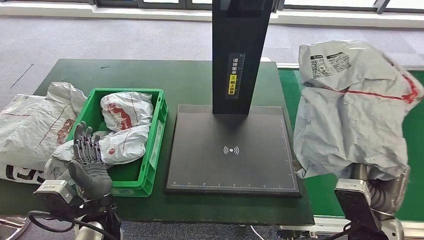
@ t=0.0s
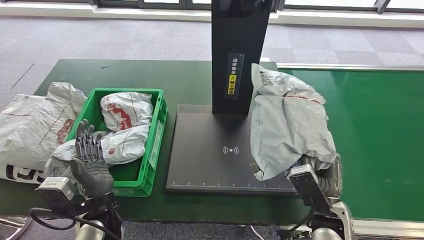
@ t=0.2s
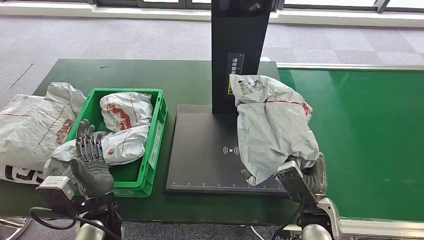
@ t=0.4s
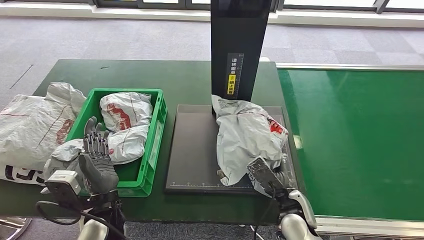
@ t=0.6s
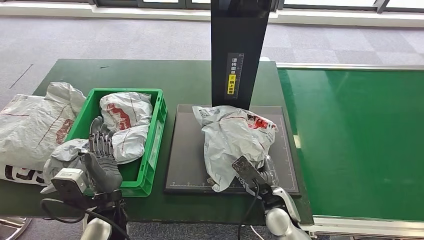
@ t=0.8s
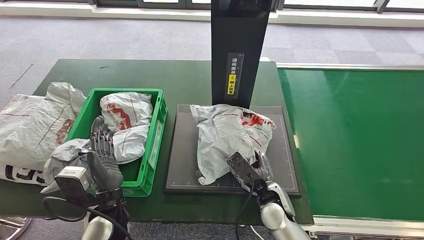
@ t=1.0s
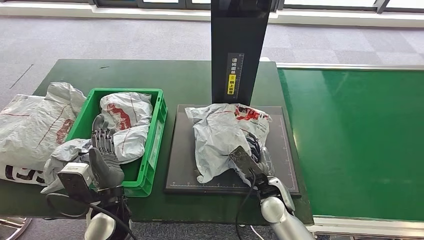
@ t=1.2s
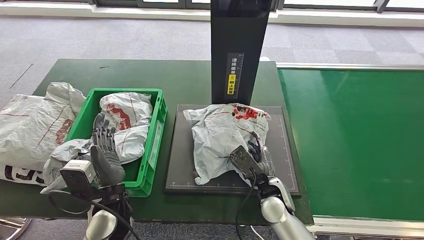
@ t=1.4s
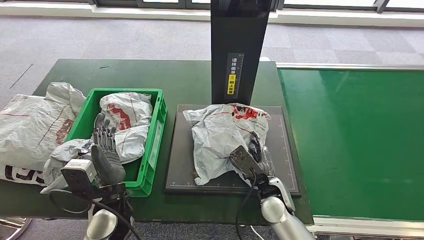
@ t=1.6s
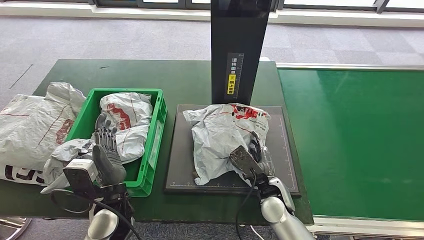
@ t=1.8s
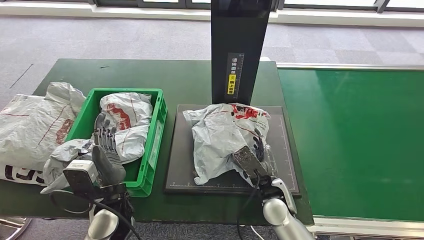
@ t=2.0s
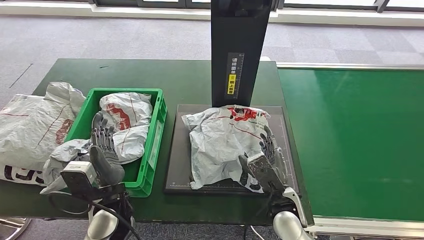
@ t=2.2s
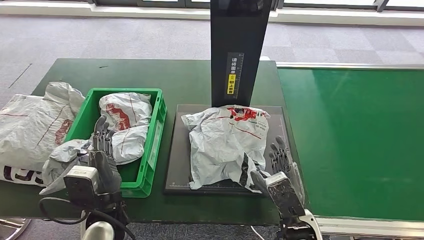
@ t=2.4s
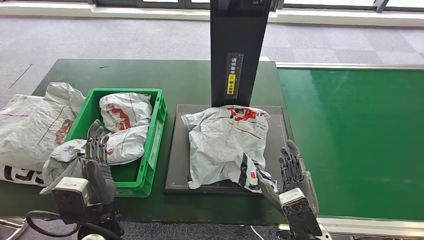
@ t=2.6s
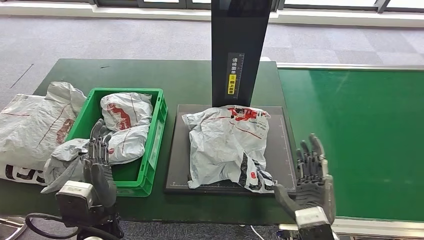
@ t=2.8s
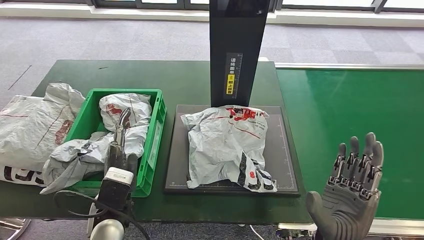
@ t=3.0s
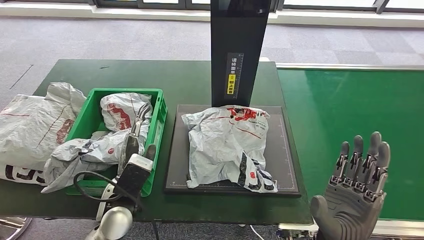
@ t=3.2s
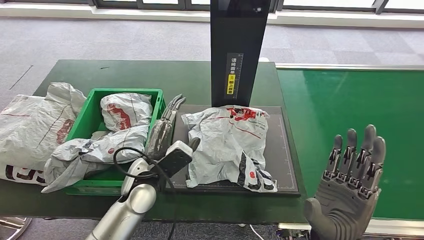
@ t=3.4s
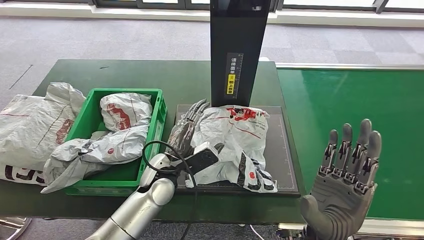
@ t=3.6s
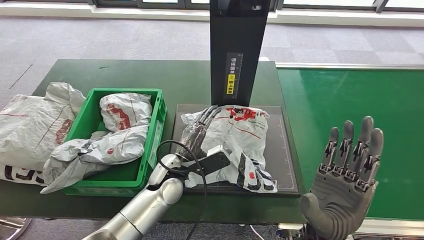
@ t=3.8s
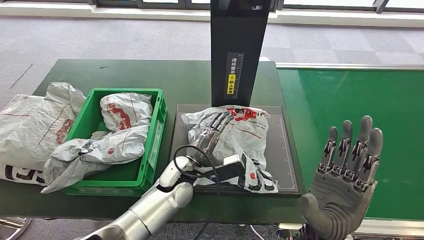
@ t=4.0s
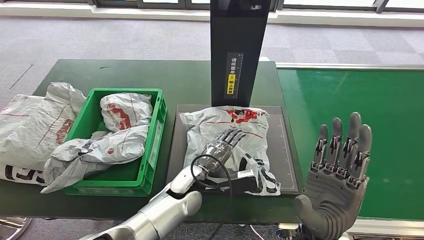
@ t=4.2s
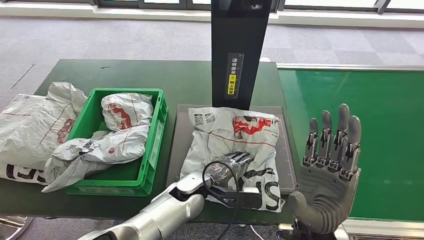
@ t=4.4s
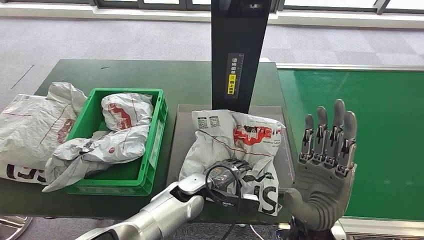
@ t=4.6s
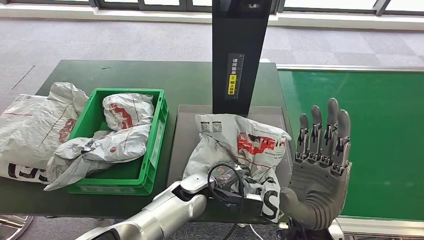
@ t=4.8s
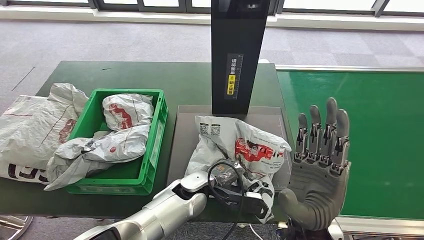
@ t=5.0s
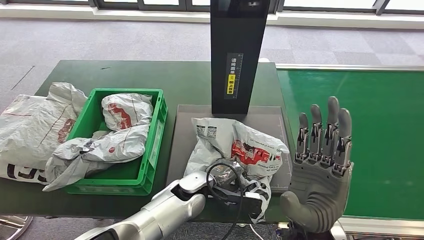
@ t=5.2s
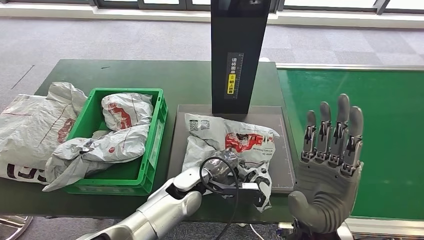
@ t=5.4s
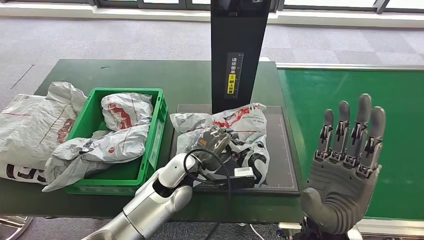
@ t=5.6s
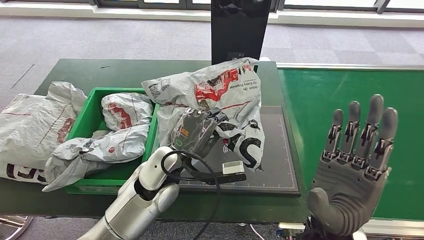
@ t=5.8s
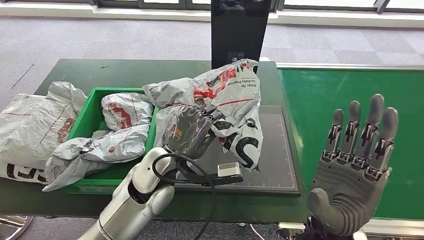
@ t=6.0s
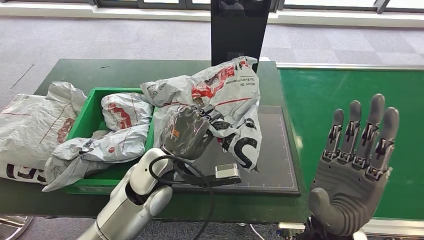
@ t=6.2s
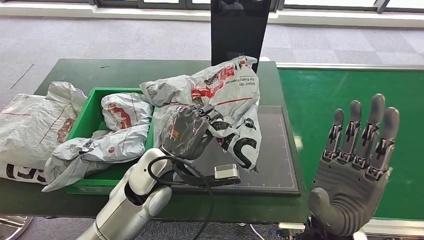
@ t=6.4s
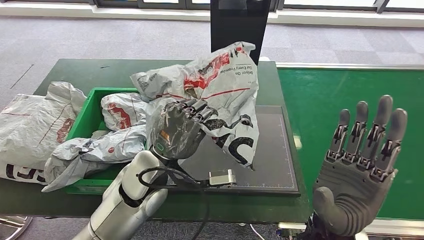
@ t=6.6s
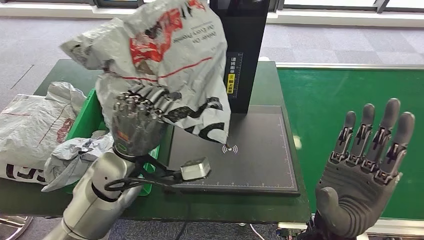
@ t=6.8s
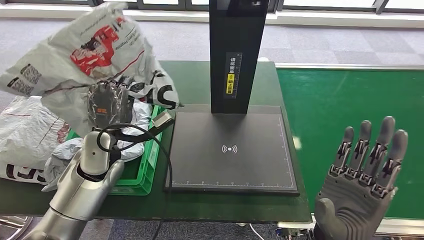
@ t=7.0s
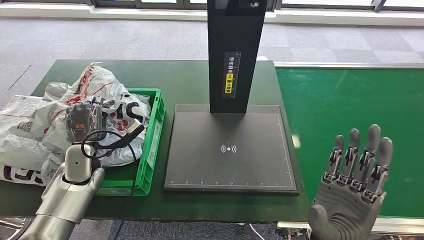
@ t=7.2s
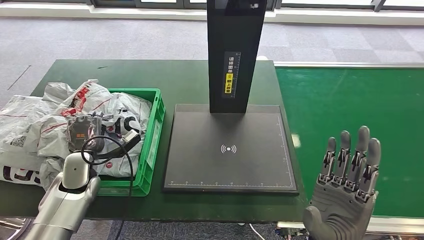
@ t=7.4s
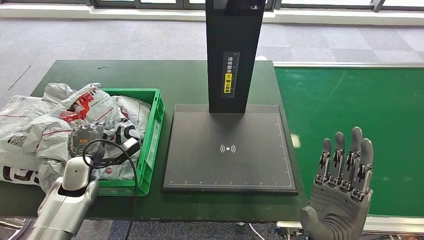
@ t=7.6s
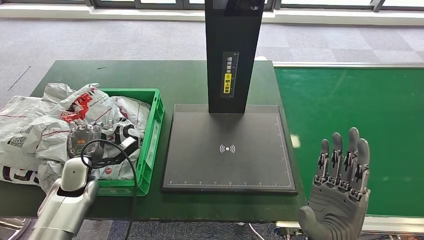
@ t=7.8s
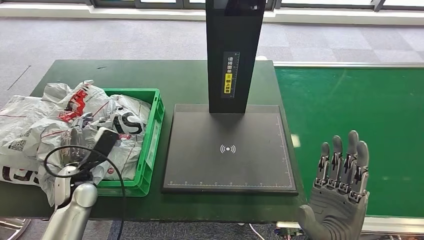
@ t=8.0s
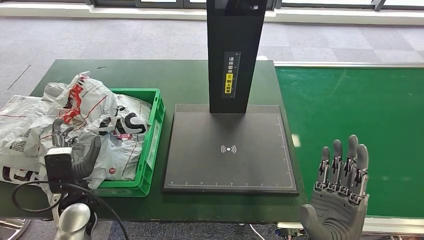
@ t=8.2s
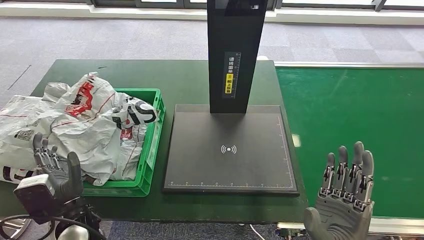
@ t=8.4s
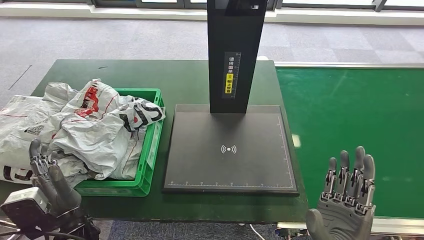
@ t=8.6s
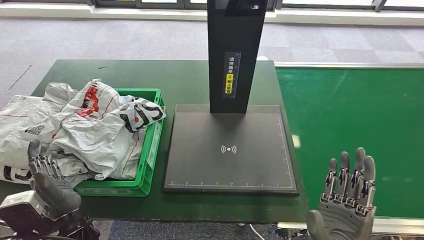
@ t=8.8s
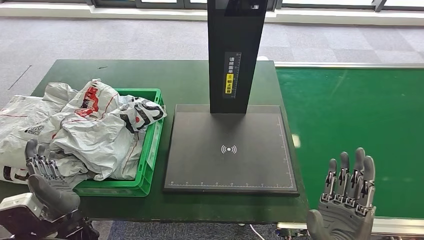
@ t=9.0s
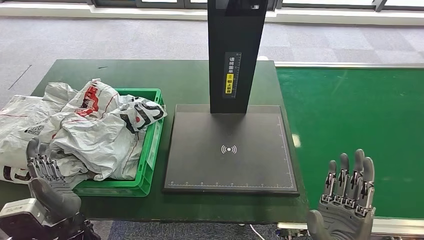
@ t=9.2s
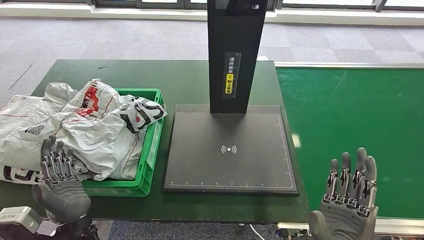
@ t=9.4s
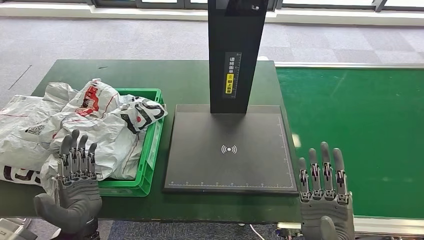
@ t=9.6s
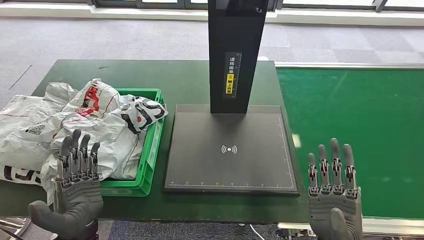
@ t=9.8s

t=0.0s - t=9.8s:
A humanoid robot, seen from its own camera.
Step, t=0.0s - t=2.4s: Place the parcel onto the inbound machine.
Step, t=2.6s - t=6.0s: Pick up the parcel from the inbound machine.
Step, t=6.2s - t=9.6s: Place the parcel into the delivery box.
t=1.4s - t=2.8s: The right hand is displaced backward and upward by about 15 cm. The left hand ends up about 5 cm from where it was.
t=2.8s - t=4.2s: The left hand shifts approximately 20 cm to the right and forward; the right hand moves upward, approximately 5 cm.
t=4.2s - t=5.6s: The left hand is displaced upward by some 5 cm.
t=8.4s - t=9.8s: The left hand moves roughly 5 cm.

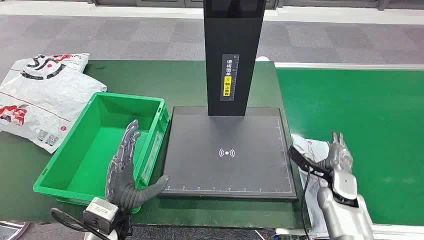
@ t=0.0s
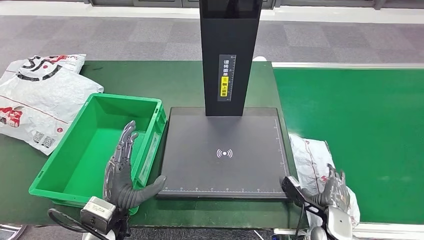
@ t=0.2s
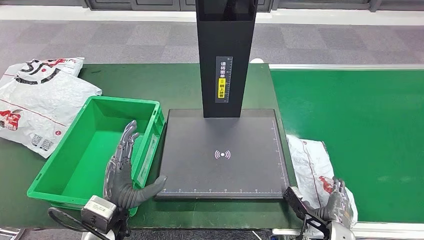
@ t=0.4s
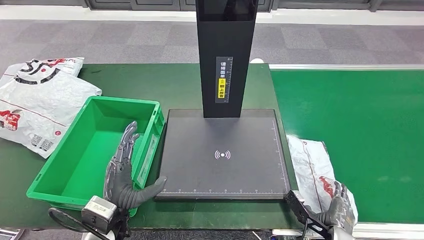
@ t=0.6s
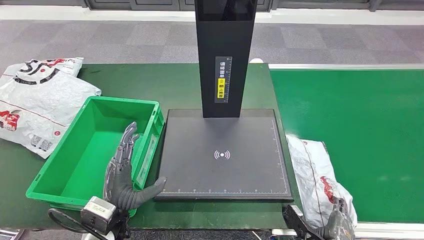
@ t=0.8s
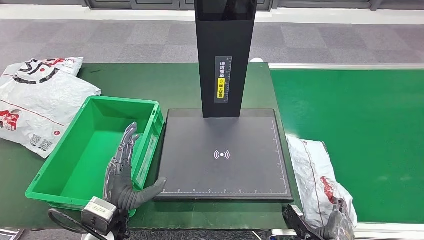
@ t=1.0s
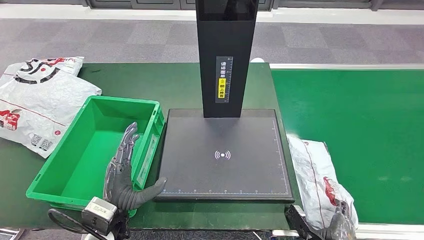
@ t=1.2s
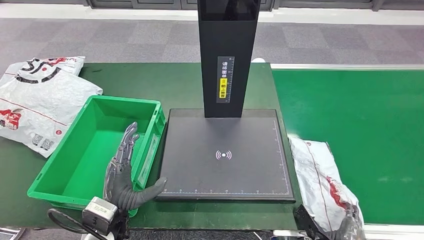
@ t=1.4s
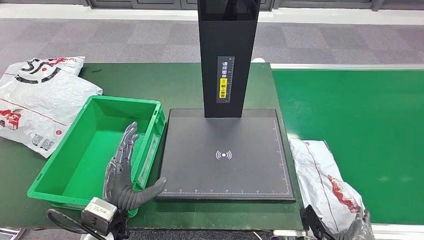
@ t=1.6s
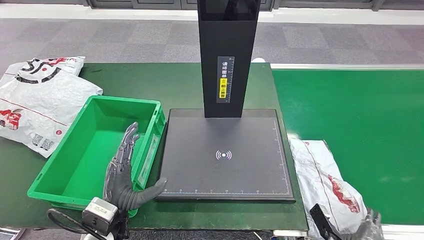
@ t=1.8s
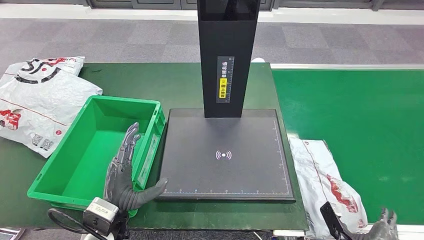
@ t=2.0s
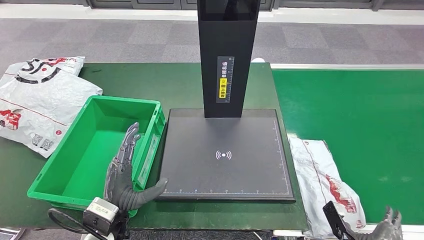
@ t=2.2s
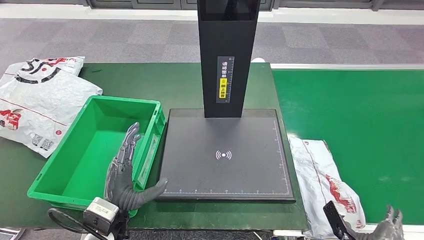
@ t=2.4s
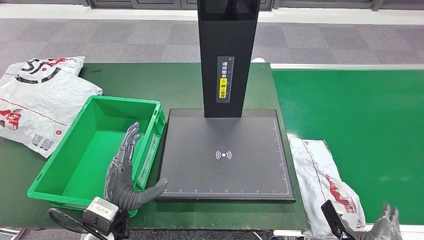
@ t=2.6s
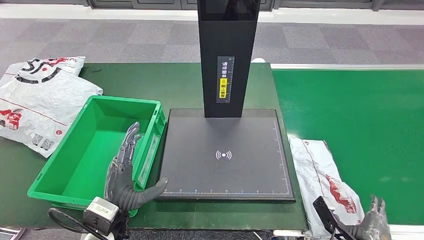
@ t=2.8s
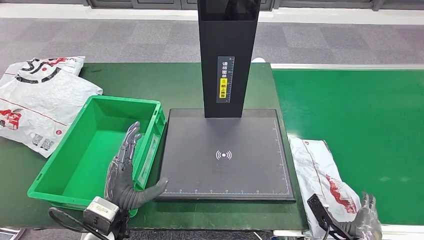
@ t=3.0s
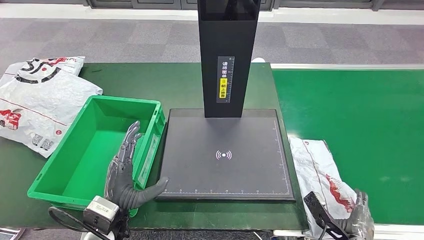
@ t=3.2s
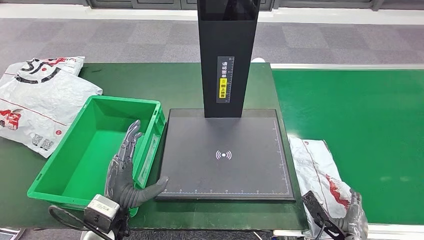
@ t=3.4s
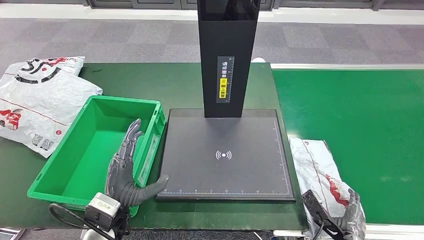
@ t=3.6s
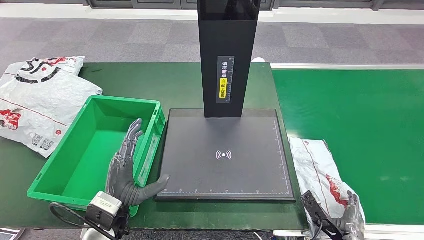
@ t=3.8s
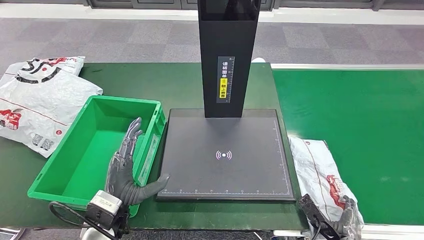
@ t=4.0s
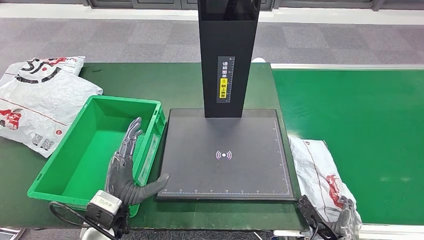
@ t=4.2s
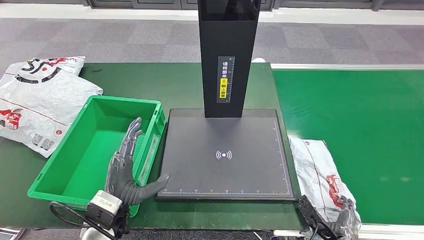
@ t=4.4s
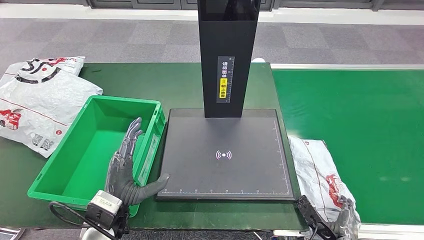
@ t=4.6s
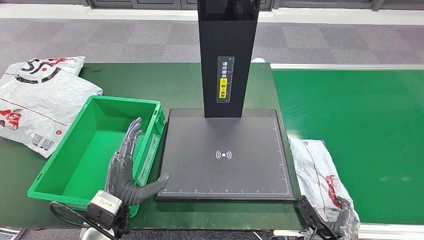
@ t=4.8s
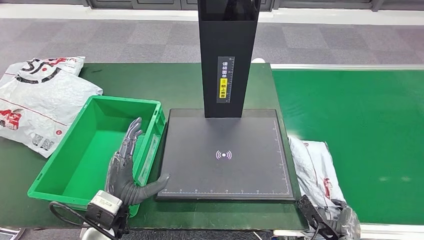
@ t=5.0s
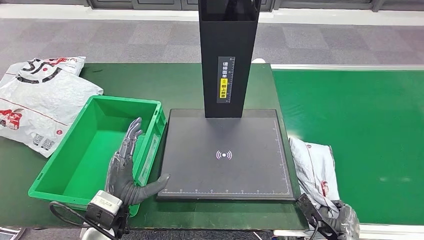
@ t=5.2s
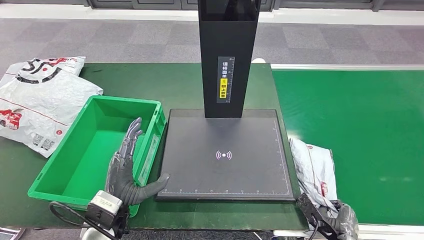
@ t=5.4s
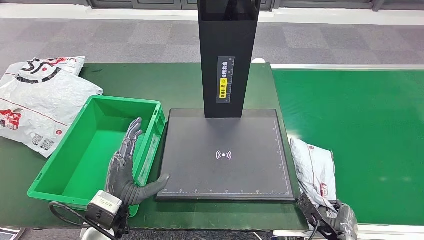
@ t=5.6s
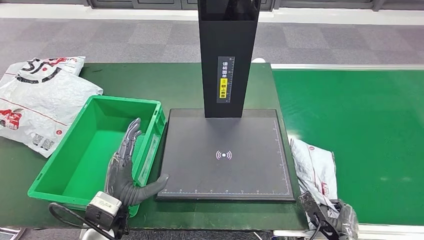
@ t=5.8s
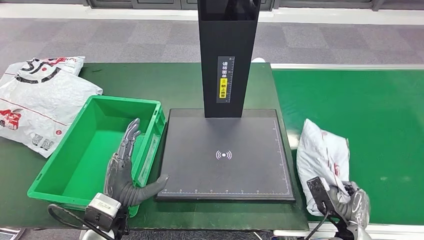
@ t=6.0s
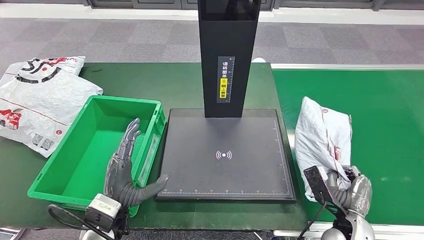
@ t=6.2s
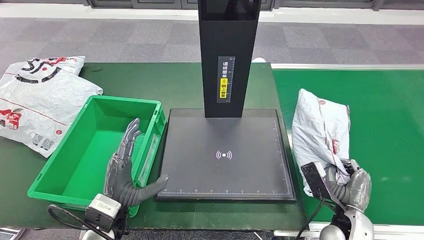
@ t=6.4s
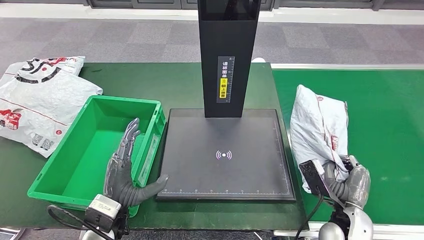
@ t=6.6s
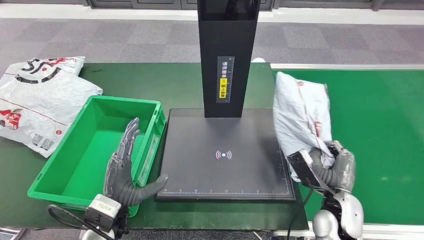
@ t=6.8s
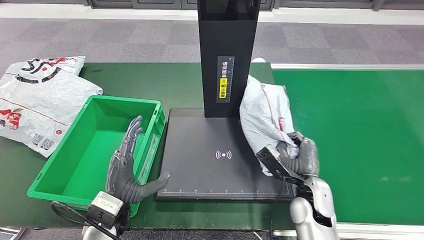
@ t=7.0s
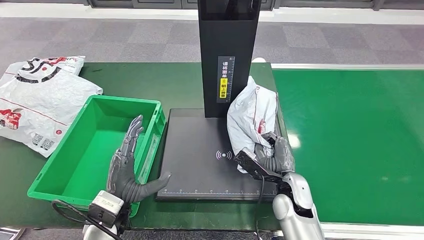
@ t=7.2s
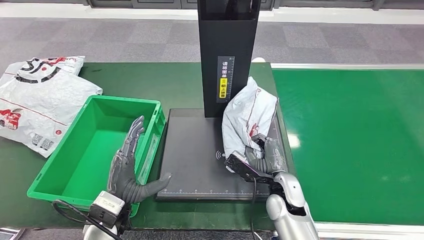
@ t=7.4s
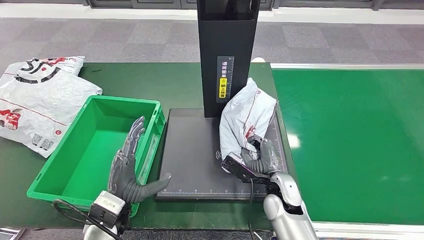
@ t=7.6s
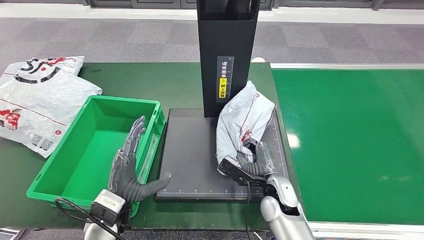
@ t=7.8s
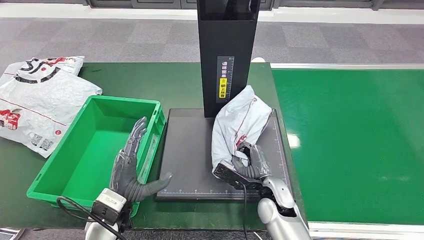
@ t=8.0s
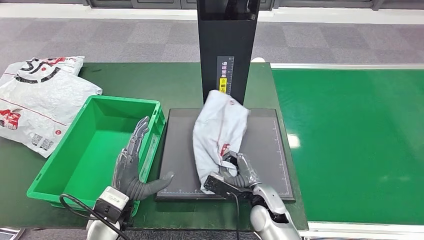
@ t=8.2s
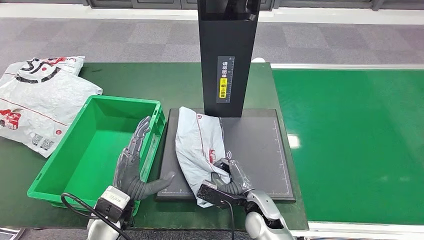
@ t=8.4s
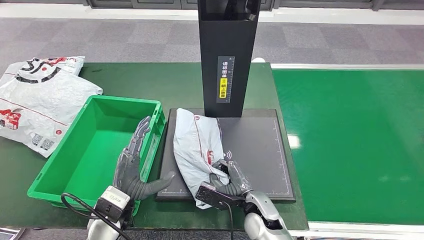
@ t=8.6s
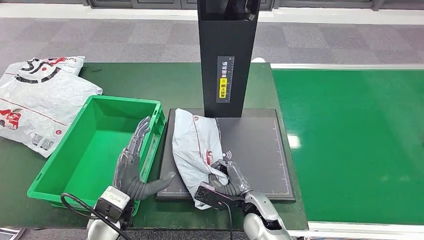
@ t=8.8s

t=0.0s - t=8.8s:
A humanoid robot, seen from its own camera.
Step, t=0.0s - t=6.2s: Take the parcel off the conveyor belt.
t=1.4s - t=5.8s: There are only small adjustments of the hands.
t=5.8s - t=7.4s: The right hand moves to the left, forward and upward, about 20 cm.
t=7.4s - t=8.8s: The right hand moves to the left, roughly 5 cm.
